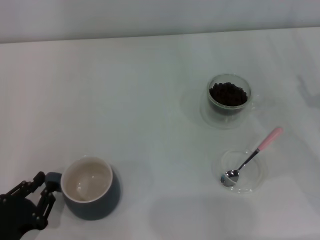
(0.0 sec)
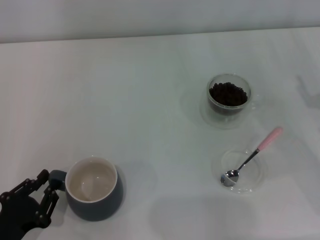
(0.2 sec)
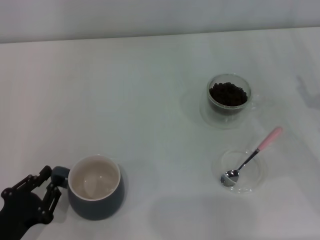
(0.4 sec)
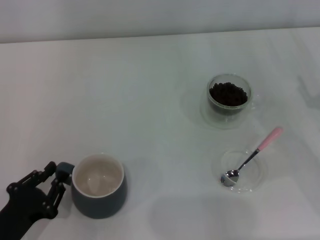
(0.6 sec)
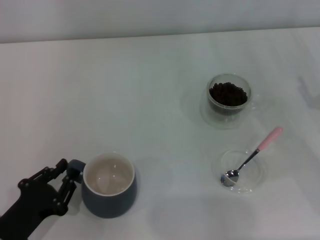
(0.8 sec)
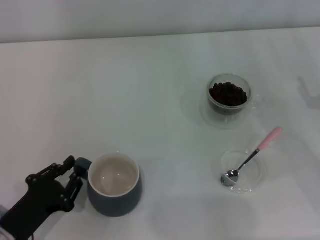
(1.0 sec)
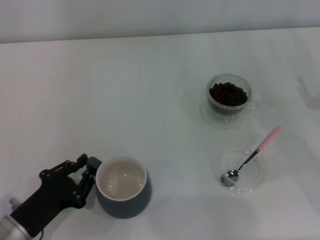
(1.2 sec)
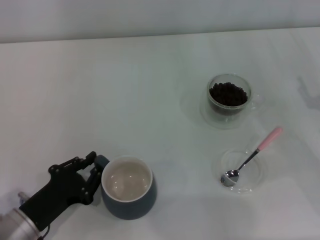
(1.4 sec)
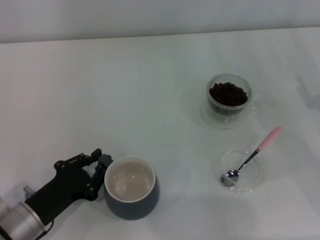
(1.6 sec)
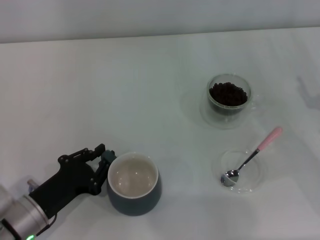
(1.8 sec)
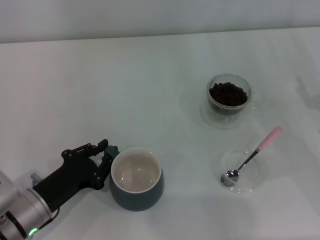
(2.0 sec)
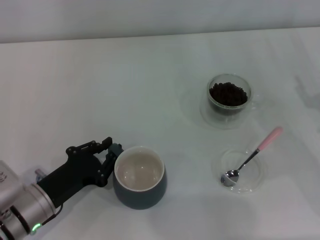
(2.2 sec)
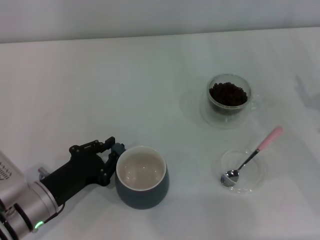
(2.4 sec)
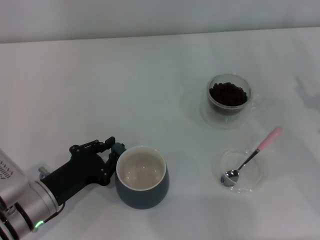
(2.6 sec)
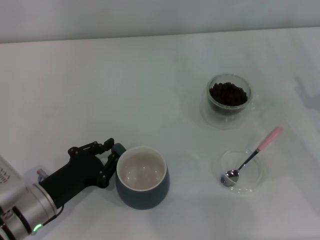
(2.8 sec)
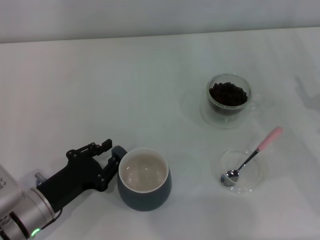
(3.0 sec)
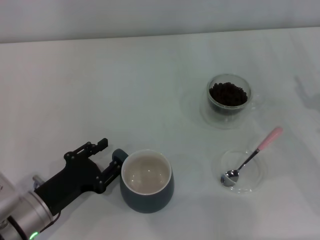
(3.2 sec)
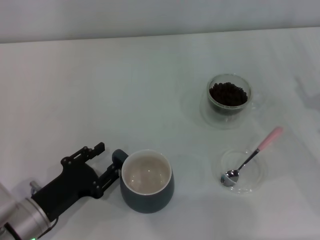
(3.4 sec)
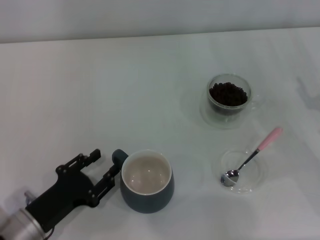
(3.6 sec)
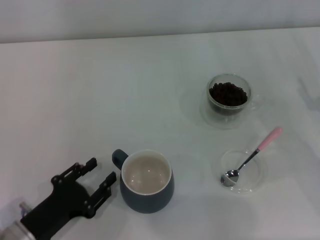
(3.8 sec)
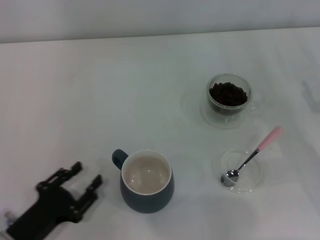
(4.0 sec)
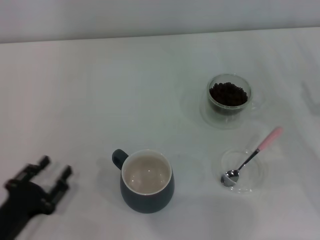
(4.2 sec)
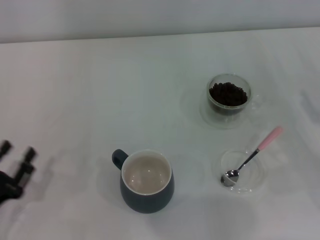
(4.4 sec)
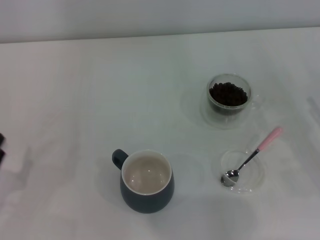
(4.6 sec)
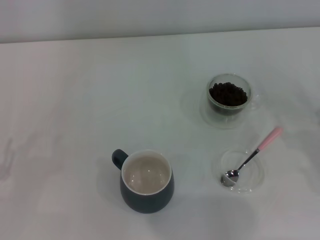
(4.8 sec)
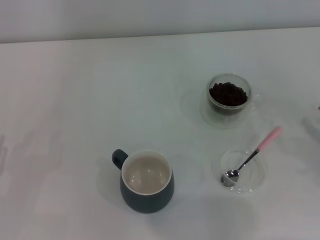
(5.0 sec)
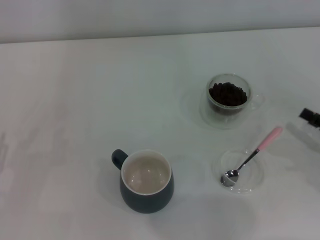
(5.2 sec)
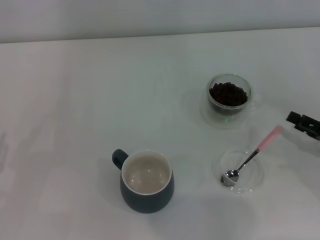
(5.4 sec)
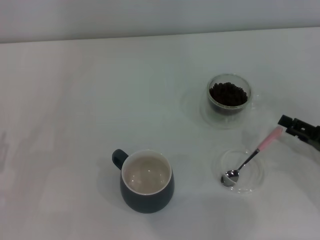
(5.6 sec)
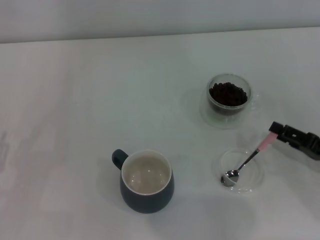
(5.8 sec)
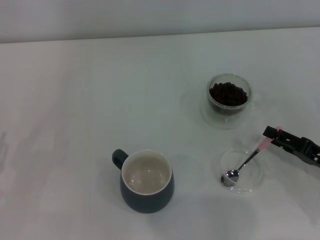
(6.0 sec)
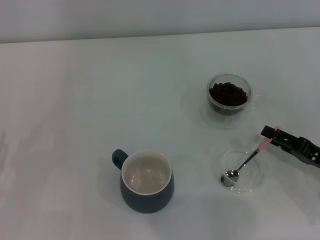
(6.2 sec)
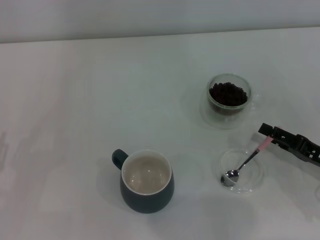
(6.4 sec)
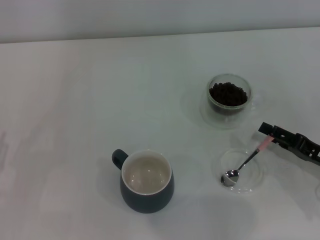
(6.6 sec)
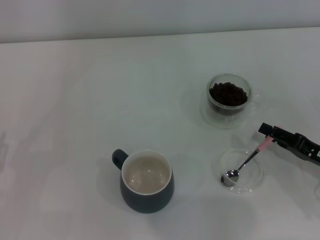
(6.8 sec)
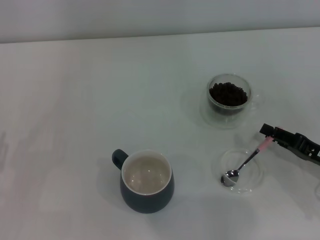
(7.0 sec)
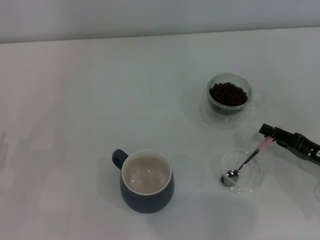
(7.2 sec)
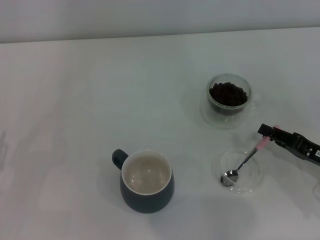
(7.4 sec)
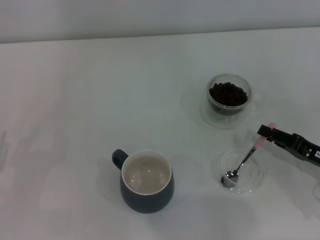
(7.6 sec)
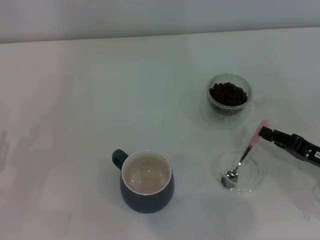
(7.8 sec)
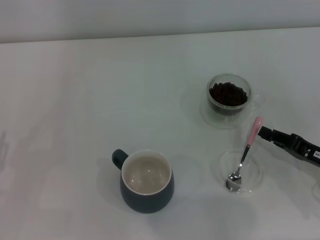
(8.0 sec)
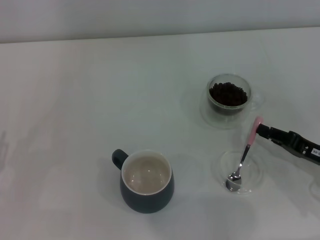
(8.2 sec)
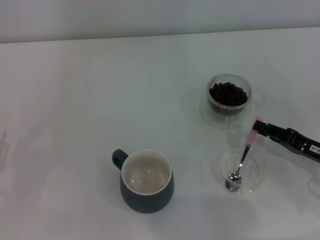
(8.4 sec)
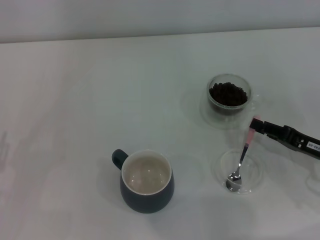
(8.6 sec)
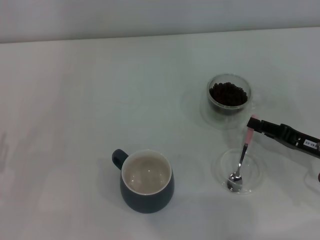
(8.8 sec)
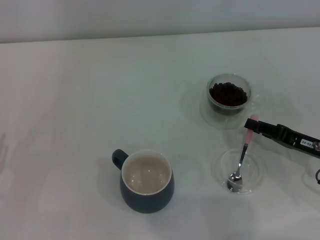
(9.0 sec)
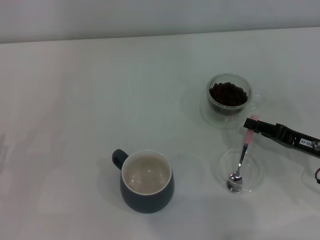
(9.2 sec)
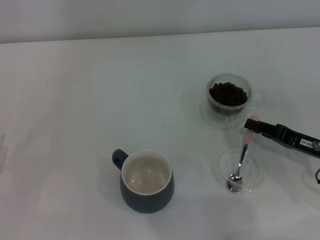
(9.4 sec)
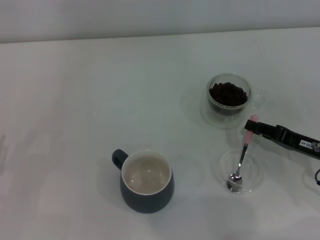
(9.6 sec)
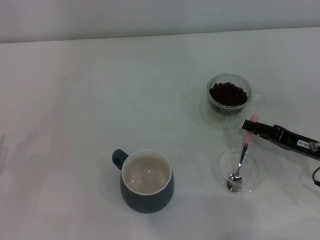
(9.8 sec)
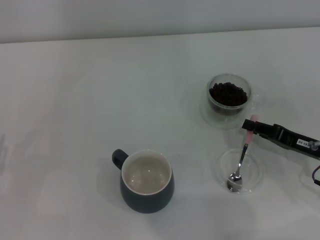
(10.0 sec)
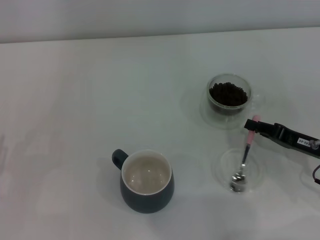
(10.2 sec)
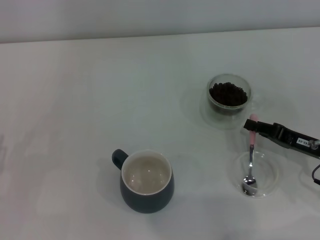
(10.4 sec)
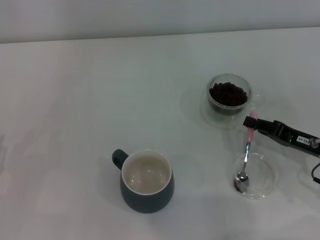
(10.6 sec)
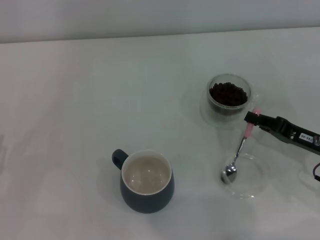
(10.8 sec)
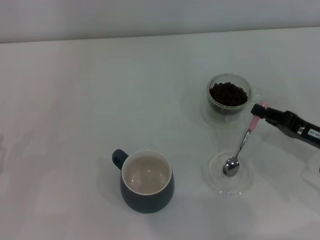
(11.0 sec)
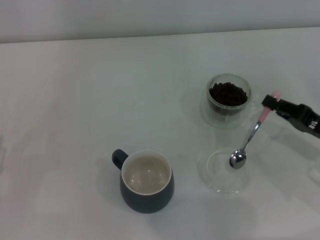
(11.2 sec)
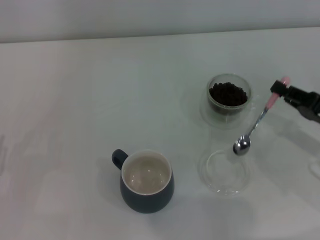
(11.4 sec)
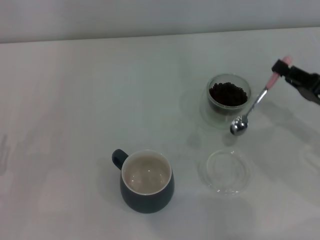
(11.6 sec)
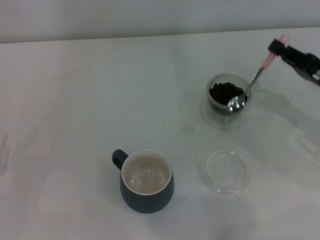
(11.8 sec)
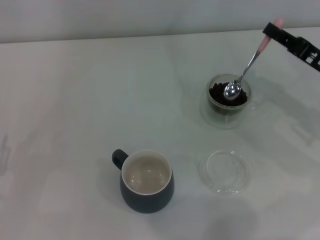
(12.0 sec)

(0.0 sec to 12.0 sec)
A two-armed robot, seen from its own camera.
Task of the whole recording: Use a pink spoon to take out the coffee beans from the glass and pour them into the gray cup.
Step, 0.0 sec - 4.0 sec: Move the cup to the center of view with the left gripper.
Step, 4.4 sec - 11.6 sec: Pick up the spoon with the right gripper.
0.0 sec - 1.6 sec: The left gripper is displaced forward and to the right by some 10 cm.
1.6 sec - 3.0 sec: There are only small adjustments of the grippers.
3.0 sec - 4.4 sec: The left gripper heads to the left and backward, covering approximately 10 cm, and opens.
4.4 sec - 6.0 sec: The left gripper shifts by some 5 cm.
6.0 sec - 7.6 sec: The right gripper closes its fingers.
7.6 sec - 9.0 sec: The grippers move only a little.
9.0 sec - 10.4 sec: Both grippers stay put.
10.4 sec - 12.0 sec: The right gripper heads upward and forward, covering some 10 cm.

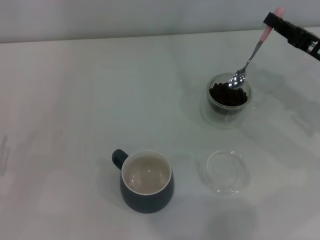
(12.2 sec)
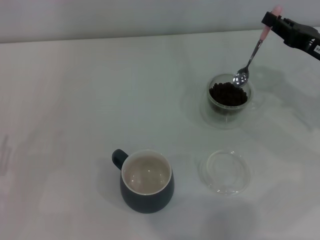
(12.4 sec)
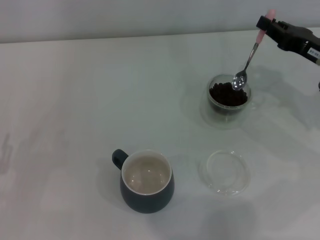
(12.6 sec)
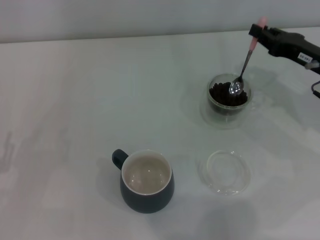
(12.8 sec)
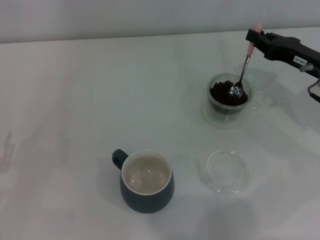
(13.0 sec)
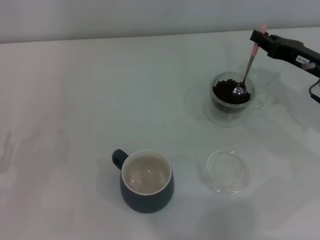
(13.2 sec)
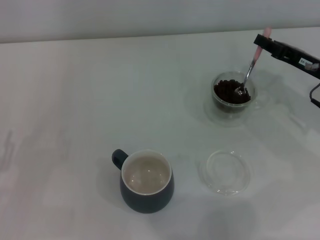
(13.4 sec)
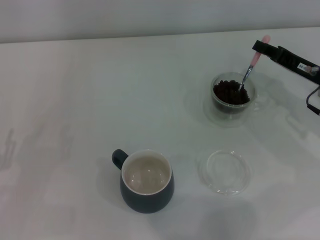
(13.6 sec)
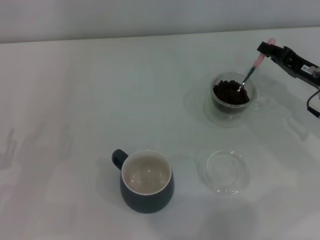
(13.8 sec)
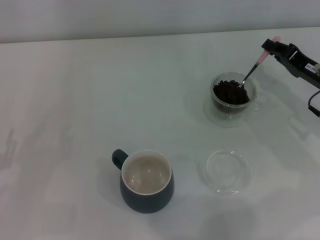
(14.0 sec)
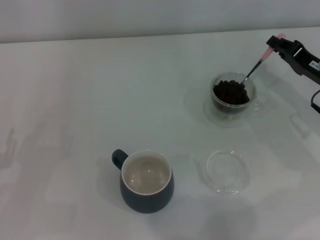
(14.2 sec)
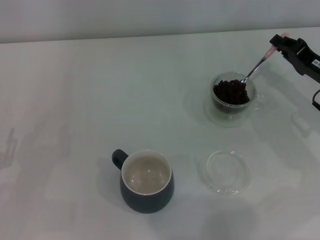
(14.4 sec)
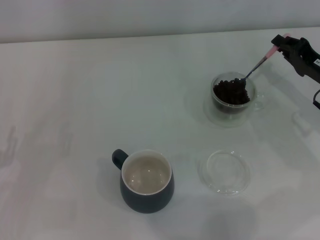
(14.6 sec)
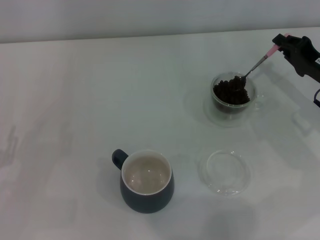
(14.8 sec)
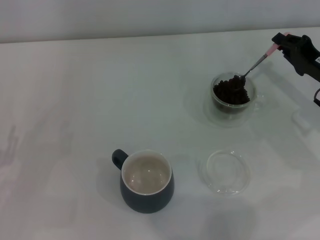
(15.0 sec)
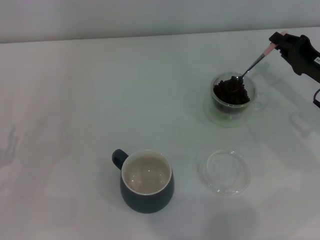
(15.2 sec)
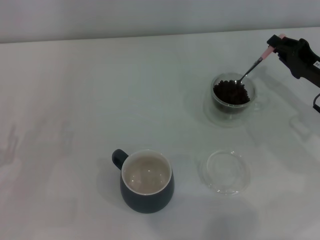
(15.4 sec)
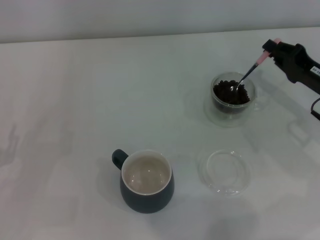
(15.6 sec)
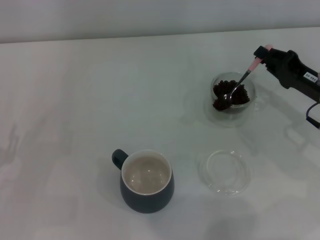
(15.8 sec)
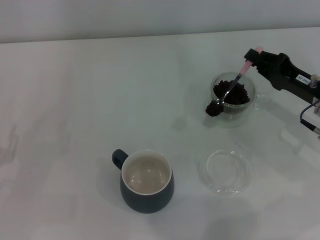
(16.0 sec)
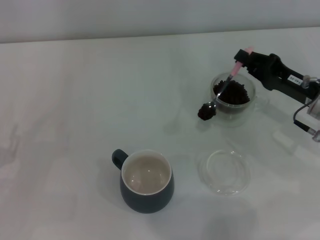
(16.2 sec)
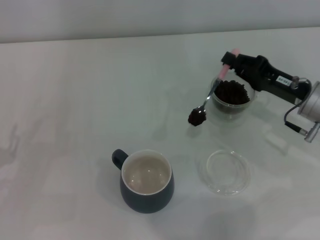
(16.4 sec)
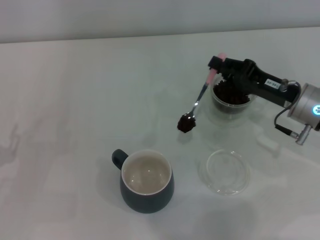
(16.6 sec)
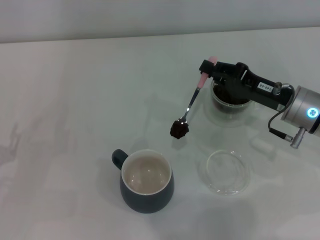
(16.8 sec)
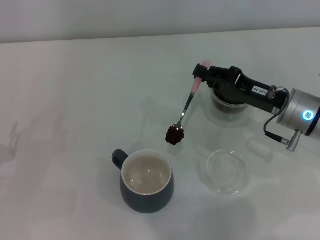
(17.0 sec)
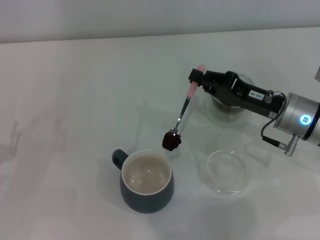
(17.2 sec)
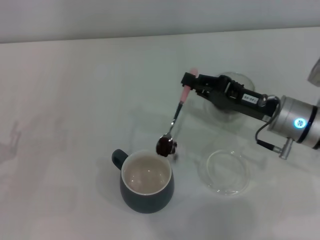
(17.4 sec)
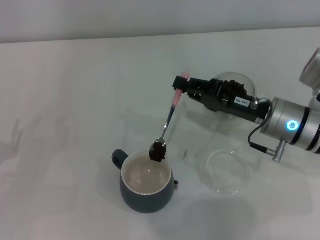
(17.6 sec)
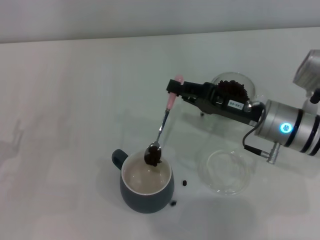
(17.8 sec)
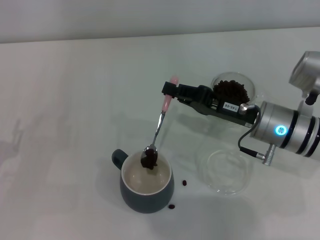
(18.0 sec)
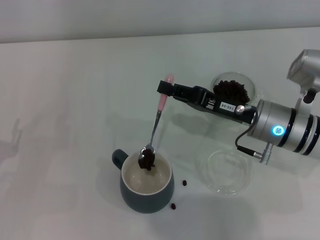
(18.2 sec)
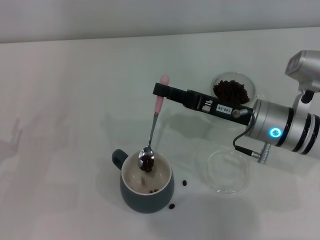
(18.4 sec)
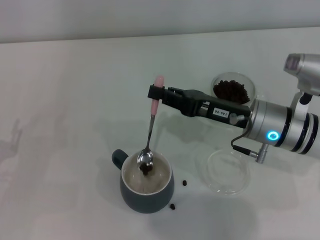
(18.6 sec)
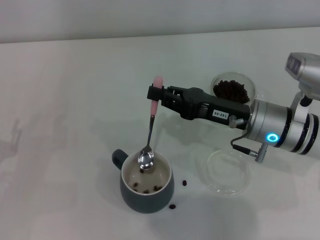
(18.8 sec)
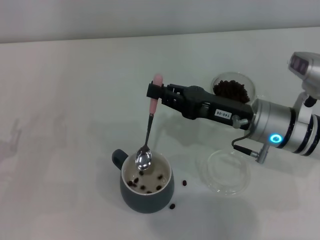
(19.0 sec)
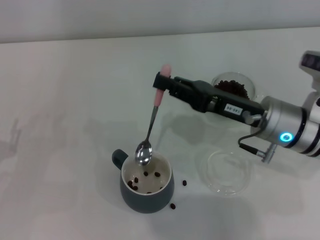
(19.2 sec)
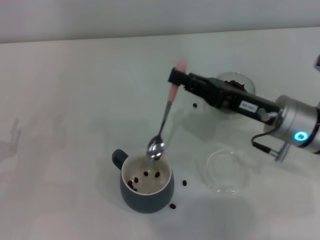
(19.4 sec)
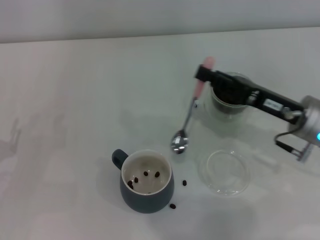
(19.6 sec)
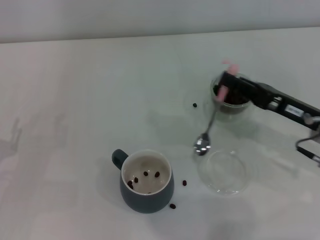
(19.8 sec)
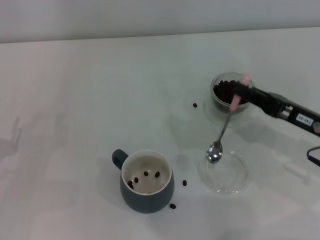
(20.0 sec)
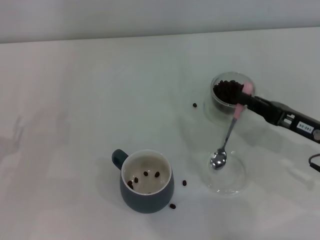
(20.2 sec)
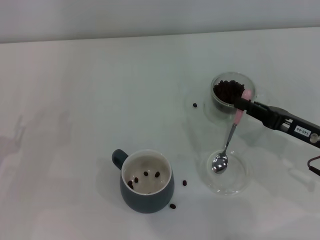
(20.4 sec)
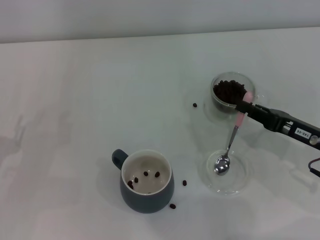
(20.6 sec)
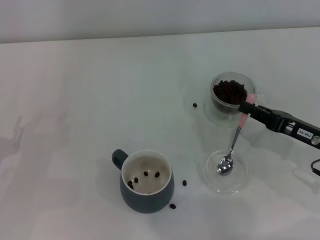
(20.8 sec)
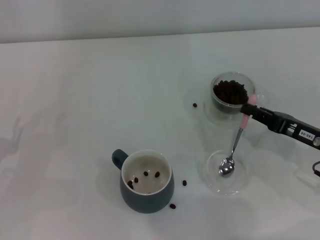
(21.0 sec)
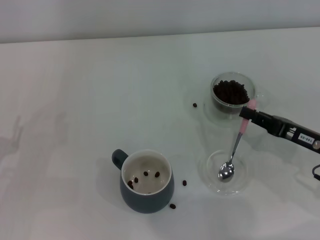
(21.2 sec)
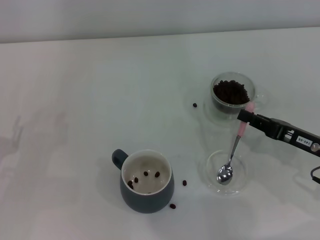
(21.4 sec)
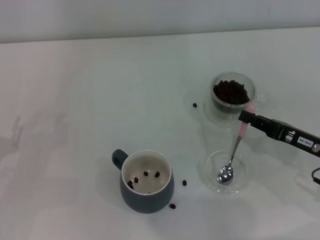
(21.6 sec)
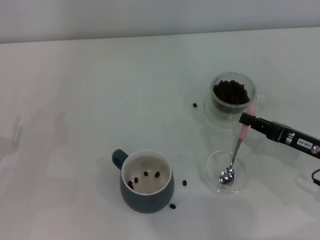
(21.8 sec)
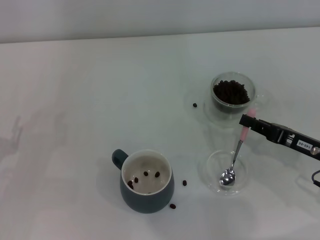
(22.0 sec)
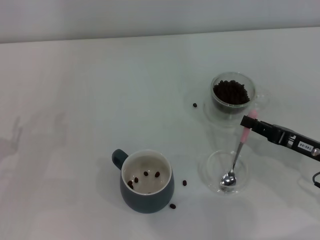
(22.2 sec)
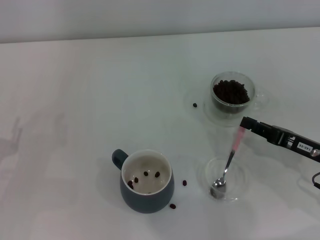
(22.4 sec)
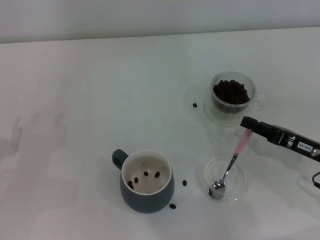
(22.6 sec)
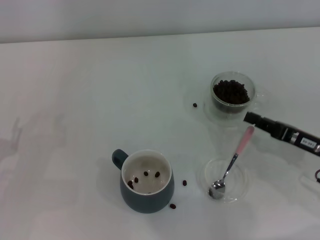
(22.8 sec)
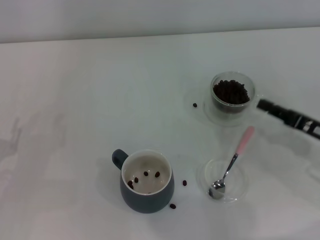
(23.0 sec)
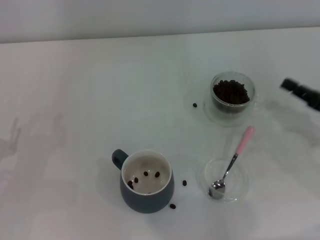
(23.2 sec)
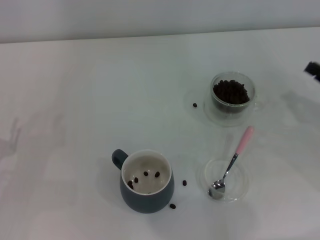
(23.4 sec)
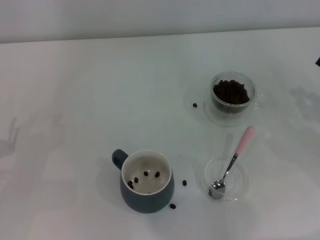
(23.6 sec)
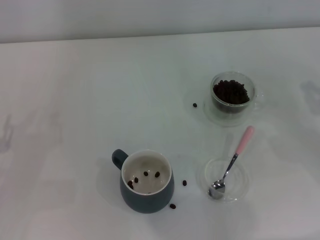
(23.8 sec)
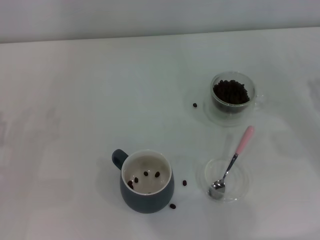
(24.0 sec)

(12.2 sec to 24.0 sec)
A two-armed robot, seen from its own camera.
Task of the whole recording: Use a pink spoon to take out the coffee beans from the glass and pour them into the gray cup.
Step, 12.2 sec - 19.2 sec: Scoop a spoonful of beans into the cup with the right gripper.
Step, 19.6 sec - 22.8 sec: Place the spoon back in its original place with the right gripper.
12.2 sec - 13.6 sec: The grippers stay close to where they were, moving slightly.
15.2 sec - 16.6 sec: The right gripper shifts roughly 5 cm to the left.
16.6 sec - 18.2 sec: The right gripper heads to the left, covering about 5 cm.
18.2 sec - 19.6 sec: The right gripper ends up approximately 5 cm from where it was.
19.6 sec - 21.0 sec: The right gripper shifts some 5 cm to the right.
21.0 sec - 22.6 sec: The grippers stay close to where they were, moving slightly.
22.6 sec - 24.0 sec: The right gripper shifts about 10 cm to the right.
